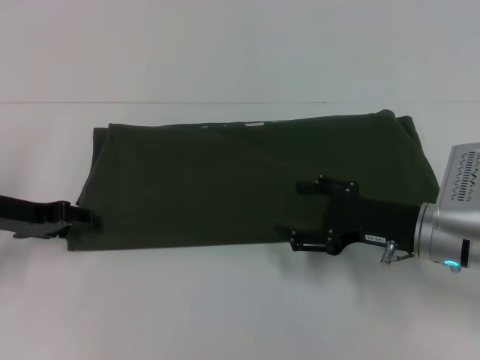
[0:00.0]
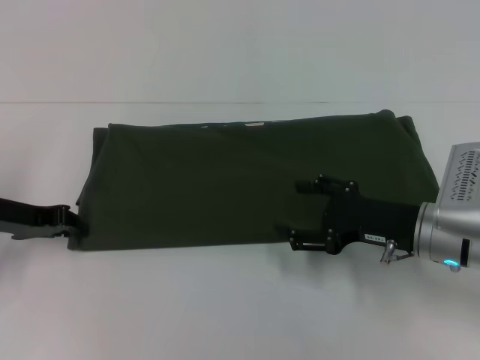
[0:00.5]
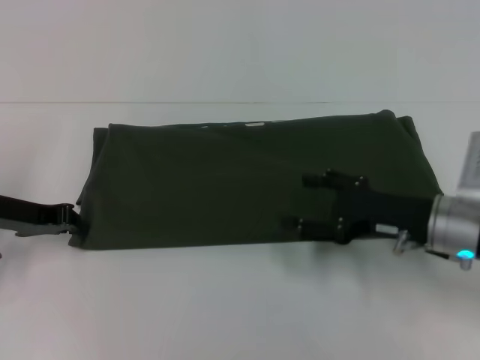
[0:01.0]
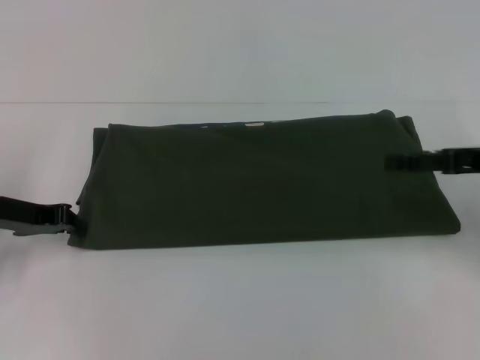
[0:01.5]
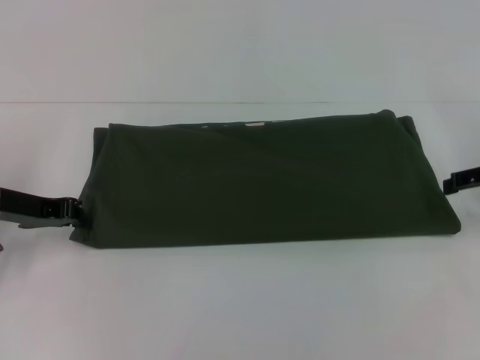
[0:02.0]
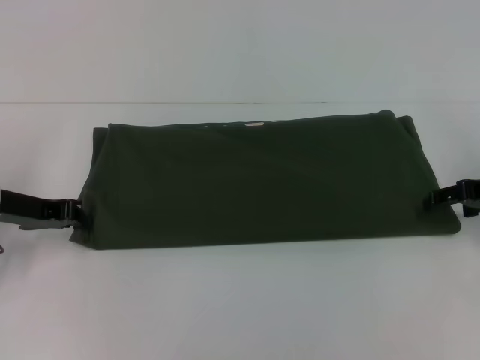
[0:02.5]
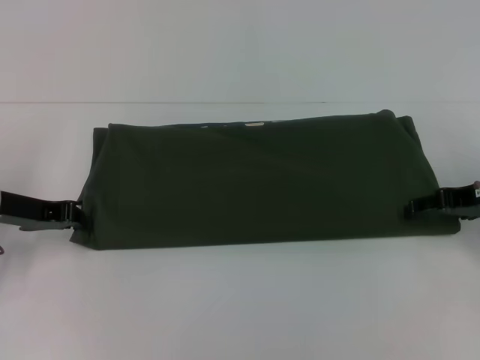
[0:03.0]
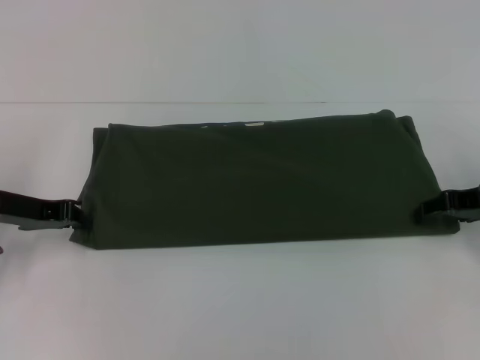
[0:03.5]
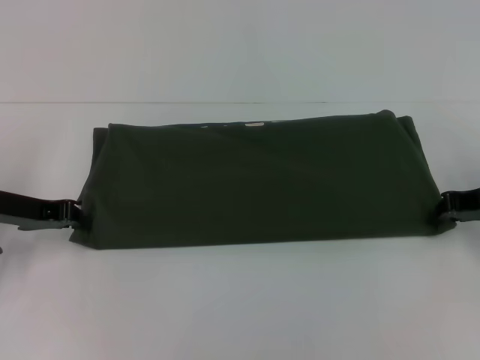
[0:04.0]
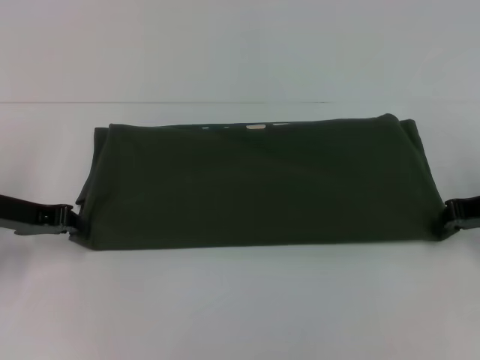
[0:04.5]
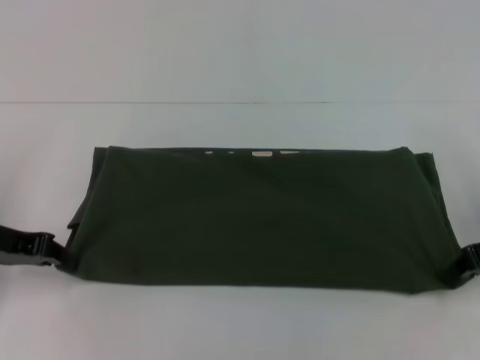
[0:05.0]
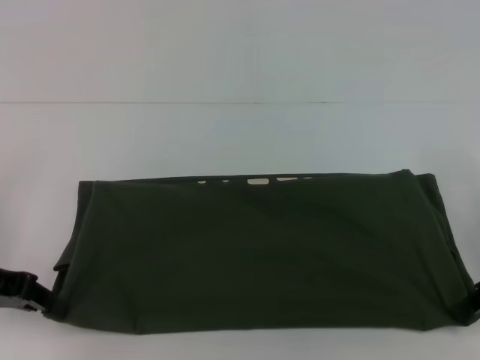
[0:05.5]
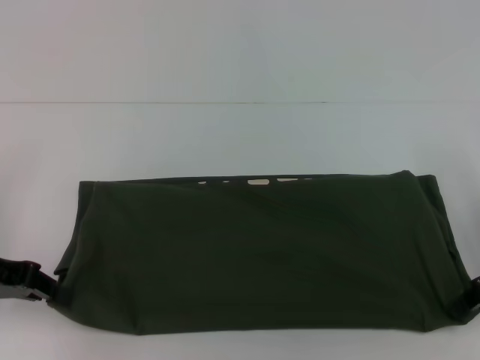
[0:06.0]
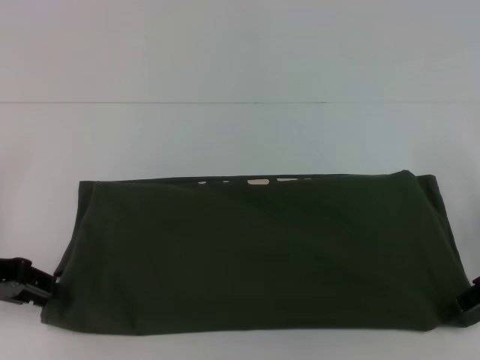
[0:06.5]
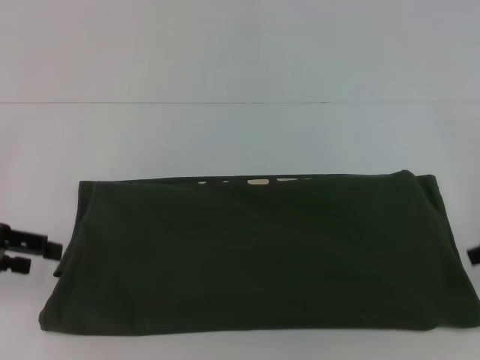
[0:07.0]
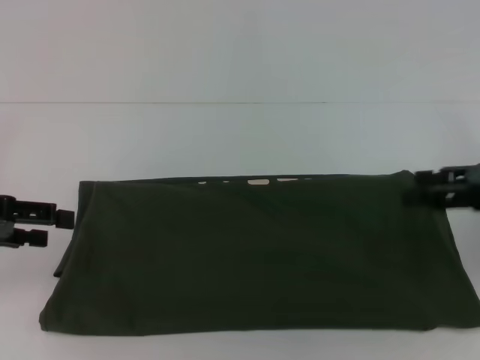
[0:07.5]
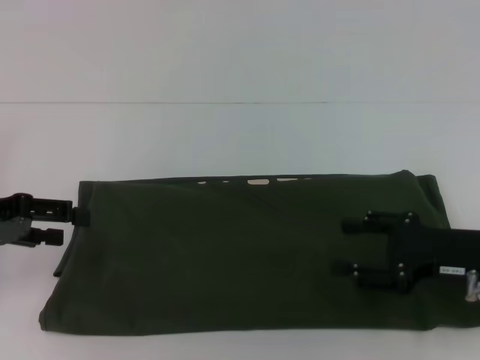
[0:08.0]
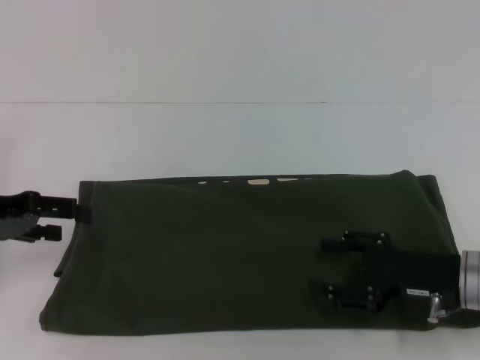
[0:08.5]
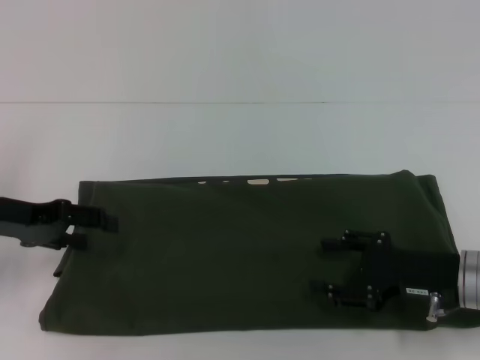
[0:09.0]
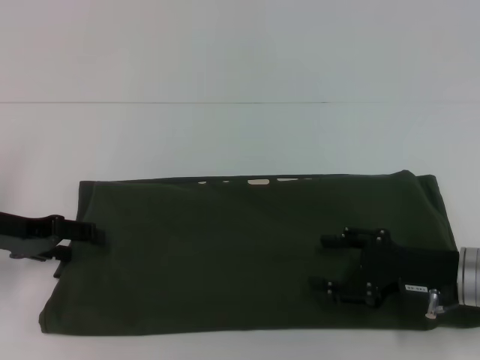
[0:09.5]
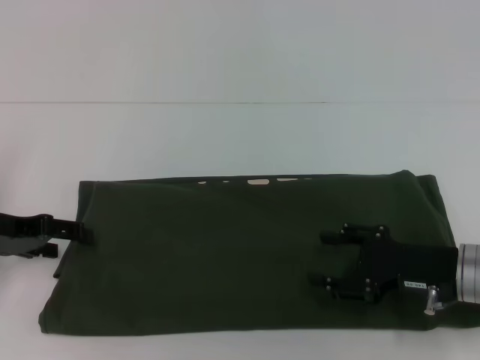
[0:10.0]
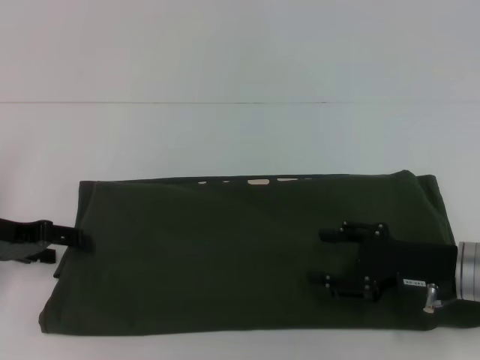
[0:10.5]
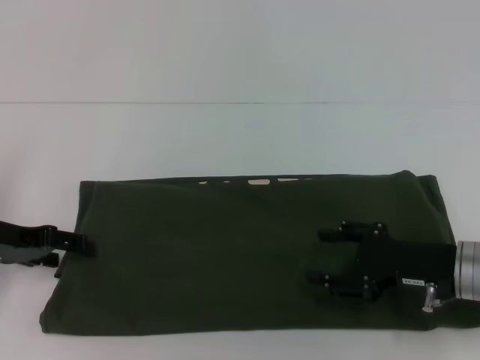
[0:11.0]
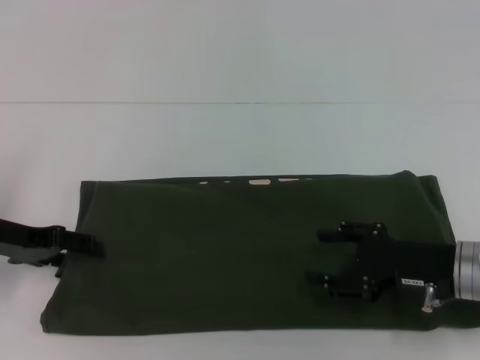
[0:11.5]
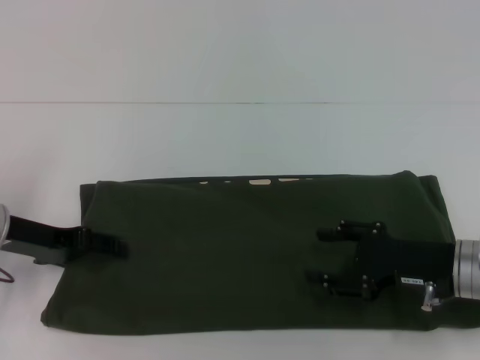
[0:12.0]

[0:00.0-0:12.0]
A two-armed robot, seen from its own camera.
0:00.0 to 0:02.0: The left gripper closes its fingers. The right gripper heads to the right and upward, covering about 15 cm.
0:02.0 to 0:04.0: The right gripper moves about 5 cm, and closes up.
0:04.0 to 0:06.0: The two grippers go roughly 5 cm backward. The right gripper closes.
0:06.0 to 0:08.0: The left gripper opens up, while the right gripper shifts by approximately 5 cm, and opens up.
0:08.0 to 0:10.0: The grippers stay close to where they were, moving slightly.
0:10.0 to 0:12.0: The grippers make only small movements.

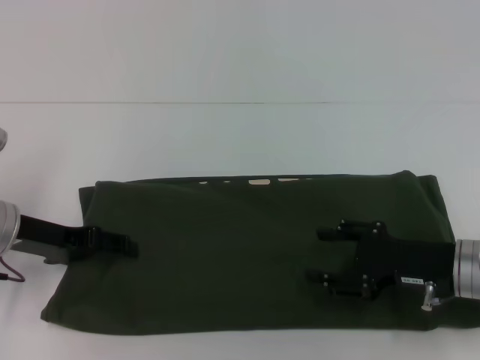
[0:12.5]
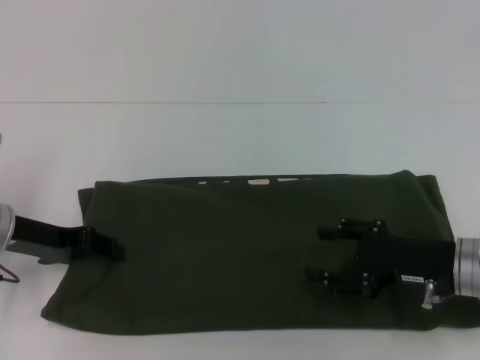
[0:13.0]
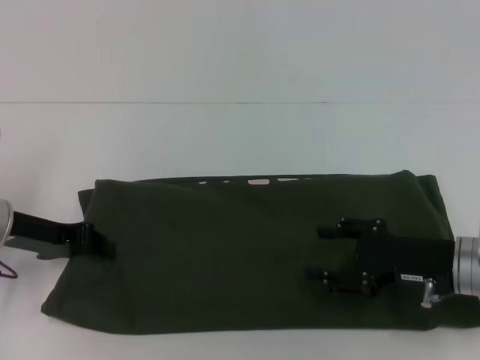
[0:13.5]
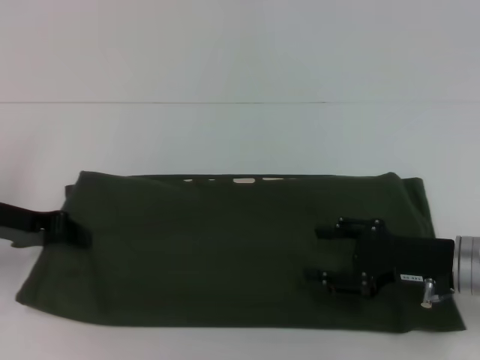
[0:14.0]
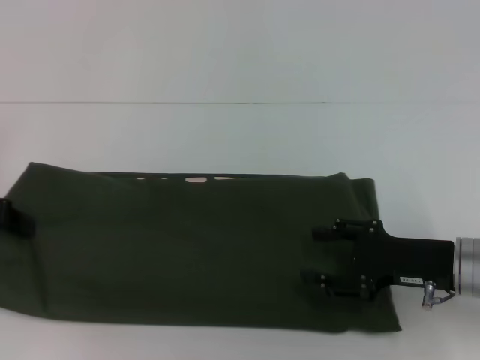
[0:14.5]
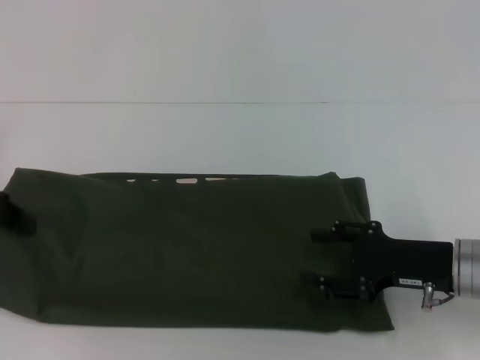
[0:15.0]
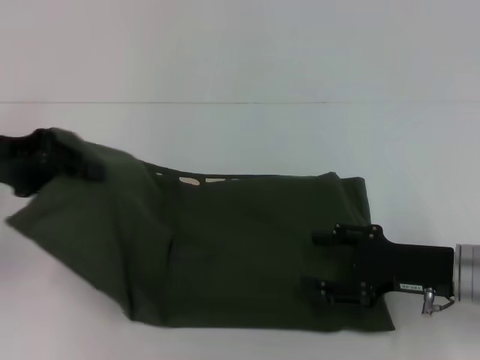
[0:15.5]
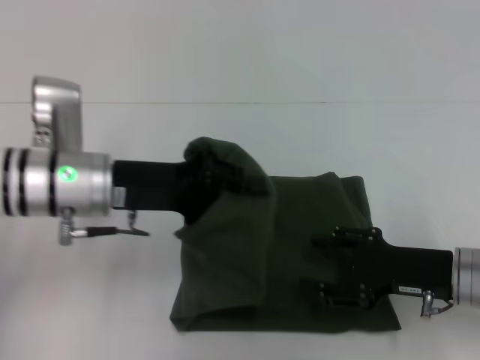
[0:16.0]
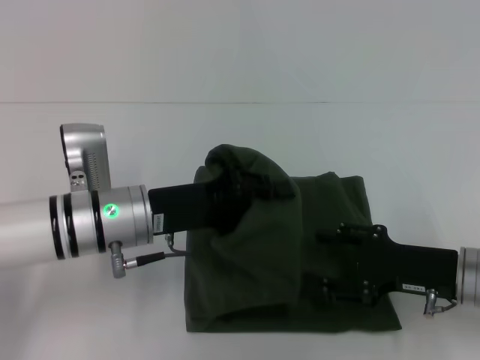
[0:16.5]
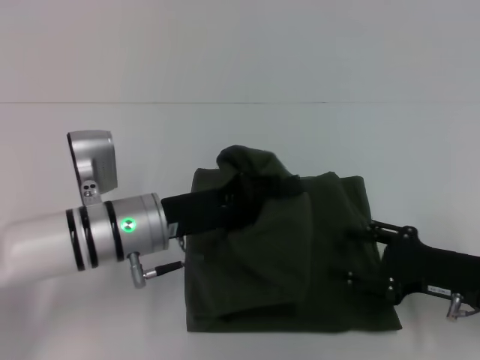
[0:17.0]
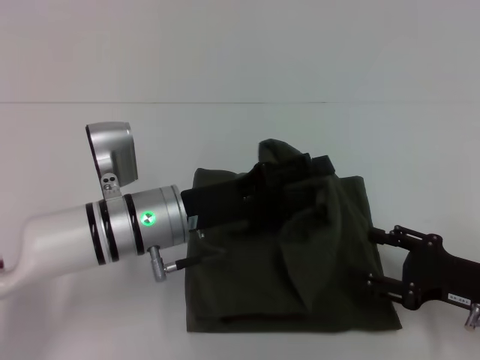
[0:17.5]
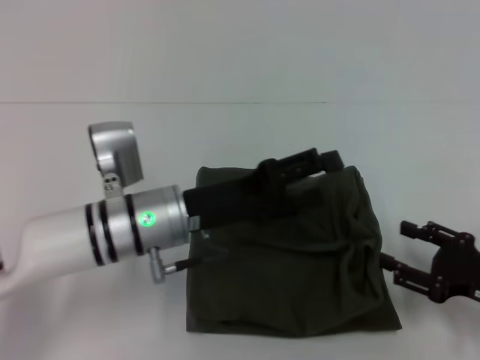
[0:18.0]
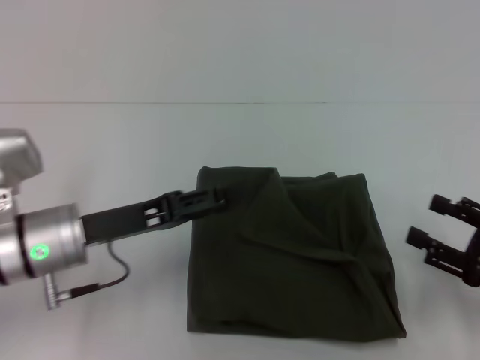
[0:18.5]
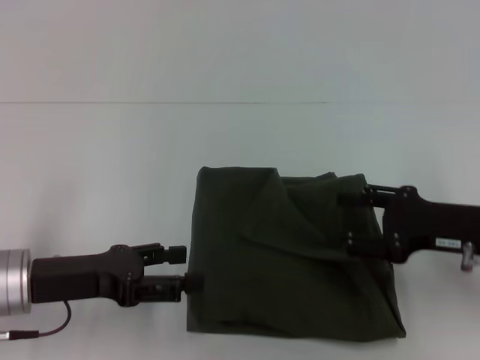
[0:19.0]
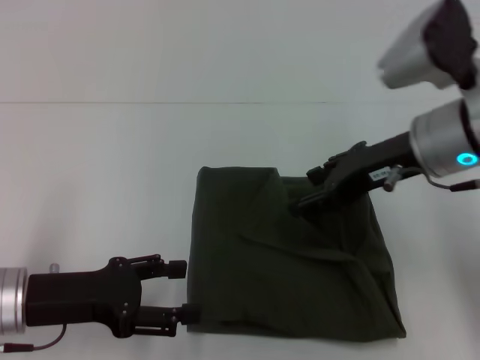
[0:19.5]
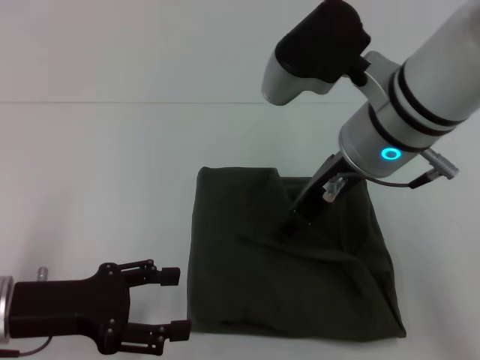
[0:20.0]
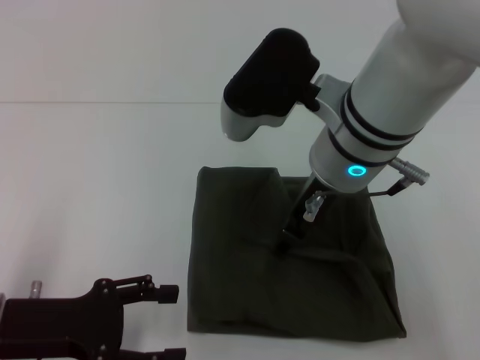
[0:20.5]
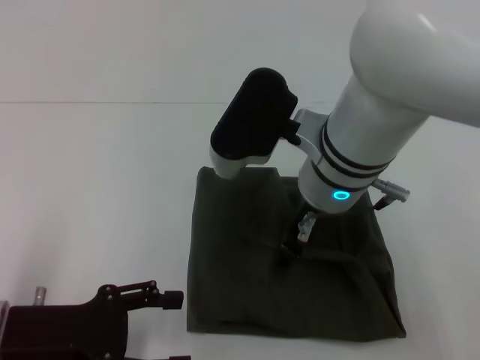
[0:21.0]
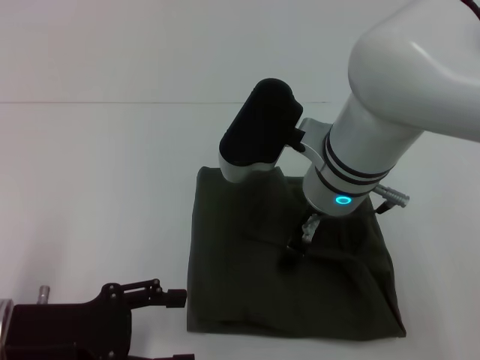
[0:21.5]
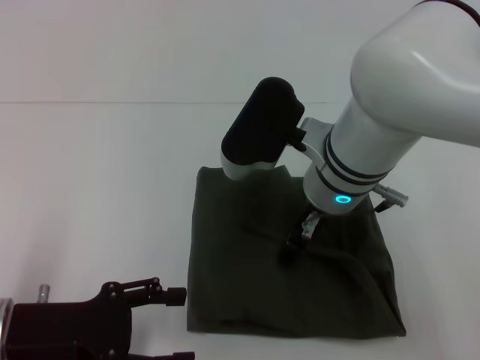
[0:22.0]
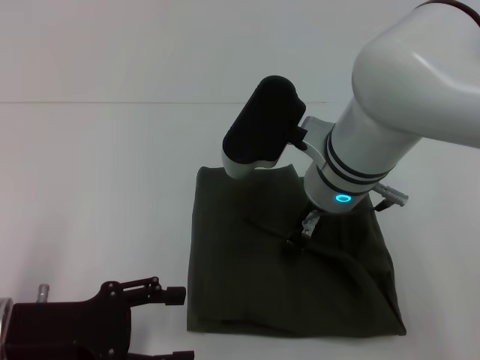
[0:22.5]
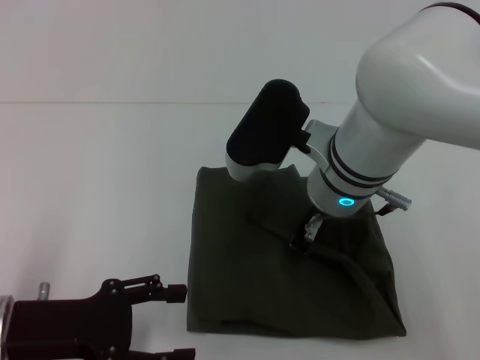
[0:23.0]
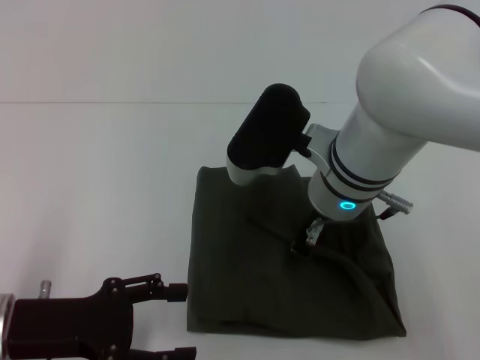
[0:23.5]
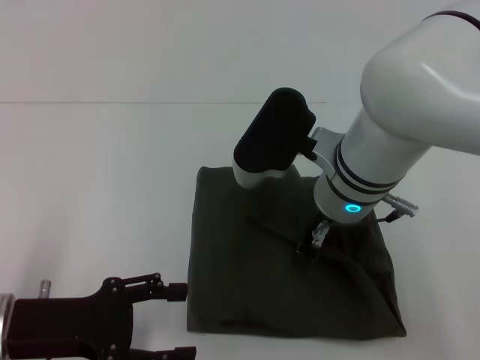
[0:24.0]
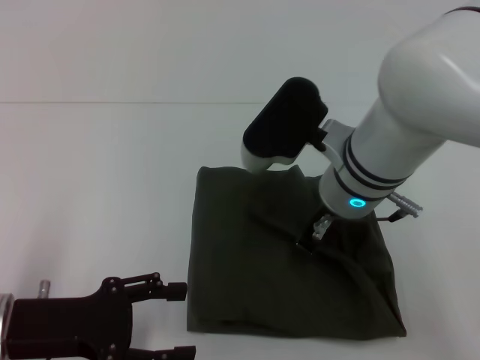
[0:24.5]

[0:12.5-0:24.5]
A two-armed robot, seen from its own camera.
Step, 0:12.5 to 0:18.0: Fold the clothes with your left hand.
0:12.5 to 0:14.5: The left gripper goes some 10 cm to the left, and closes.
0:14.5 to 0:16.5: The left gripper shifts about 20 cm to the right.
0:16.5 to 0:18.5: The right gripper heads to the right and backward, covering about 10 cm; the left gripper travels to the left by roughly 5 cm, and opens its fingers.
0:18.5 to 0:20.5: The left gripper goes some 10 cm backward and to the left, while the right gripper travels to the left, upward and forward by some 30 cm.
0:20.5 to 0:22.5: The right gripper moves downward, roughly 5 cm.
0:22.5 to 0:24.5: The right gripper closes its fingers.

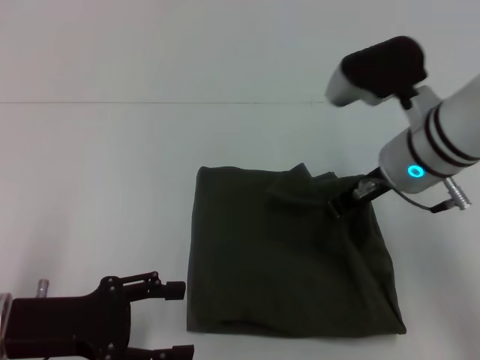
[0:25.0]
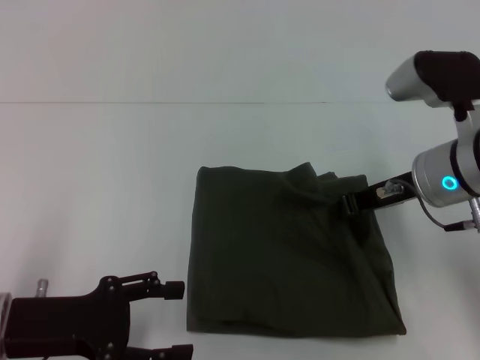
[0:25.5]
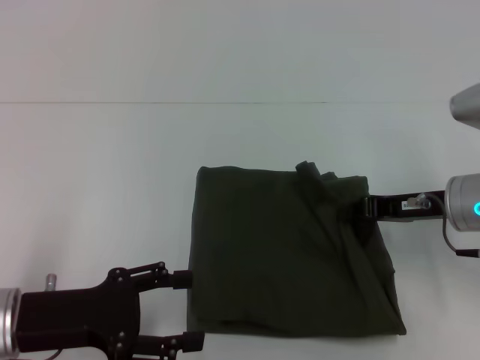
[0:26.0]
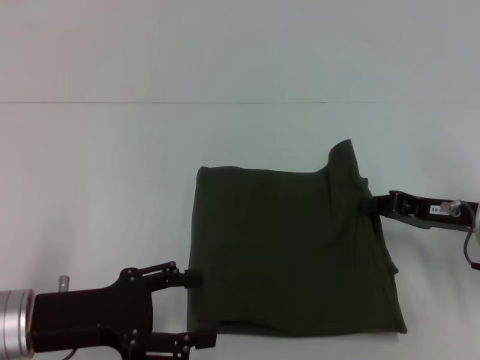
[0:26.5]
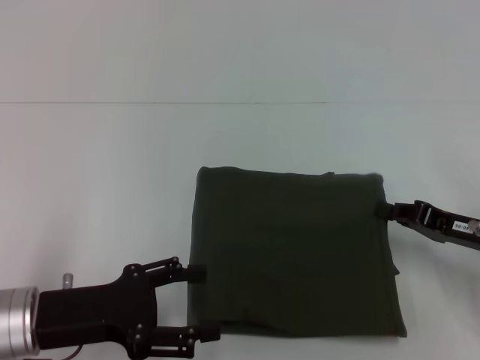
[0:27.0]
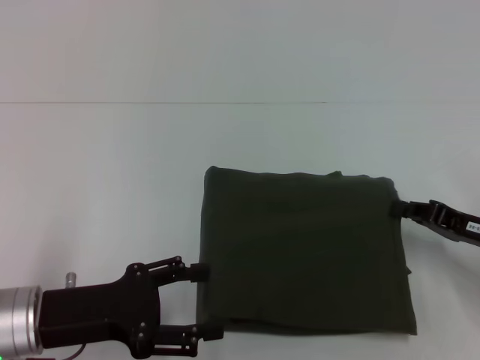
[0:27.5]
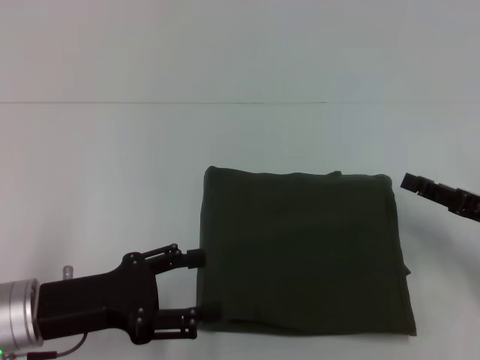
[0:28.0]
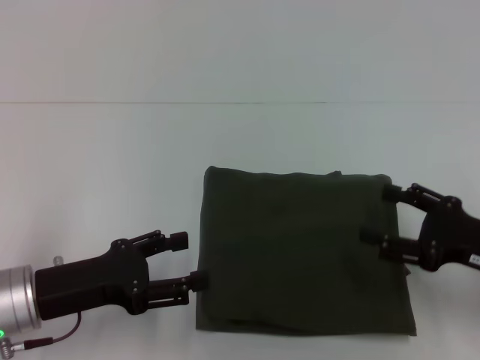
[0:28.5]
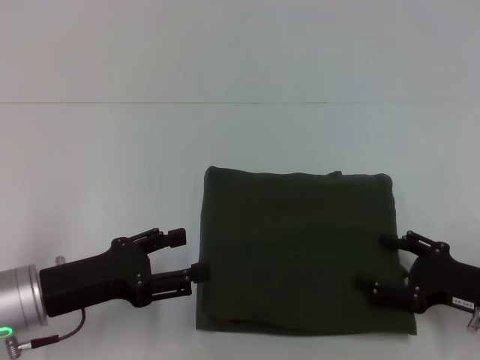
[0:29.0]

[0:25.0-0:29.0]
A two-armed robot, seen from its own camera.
0:25.0 to 0:27.0: The right gripper travels to the right, downward and backward by some 20 cm.
0:27.0 to 0:29.0: The right gripper ends up some 5 cm from where it was, and opens its fingers.
